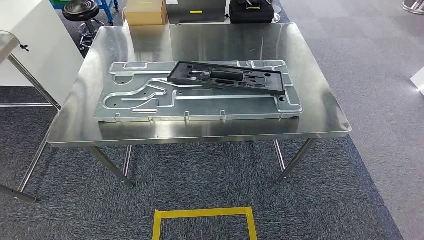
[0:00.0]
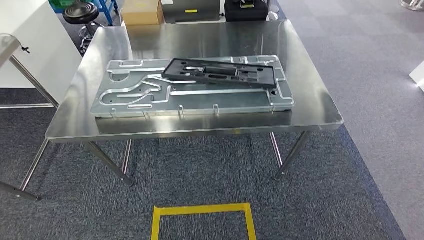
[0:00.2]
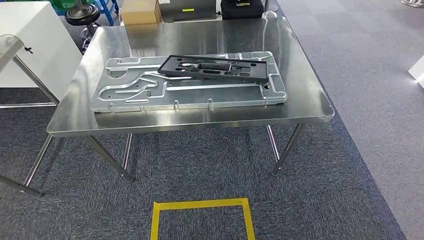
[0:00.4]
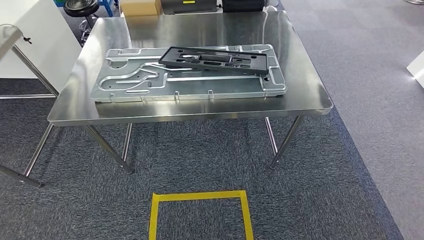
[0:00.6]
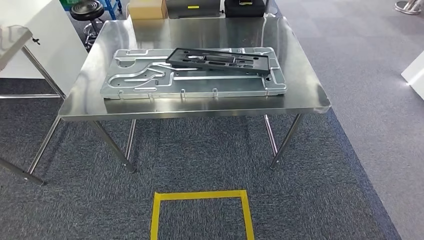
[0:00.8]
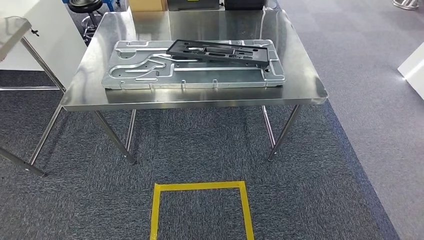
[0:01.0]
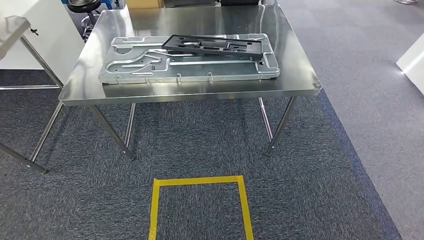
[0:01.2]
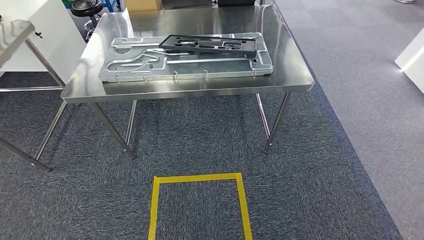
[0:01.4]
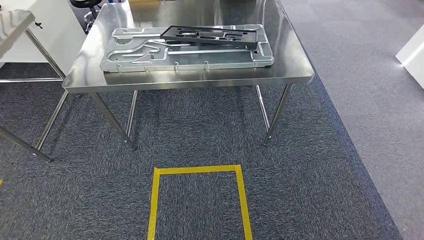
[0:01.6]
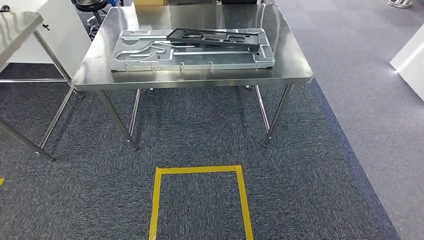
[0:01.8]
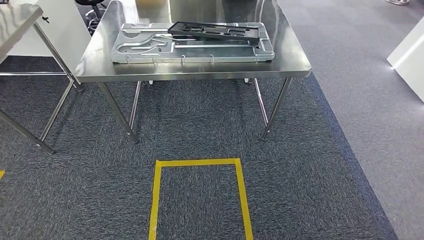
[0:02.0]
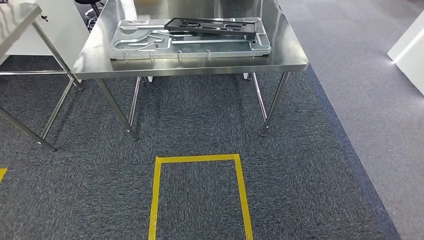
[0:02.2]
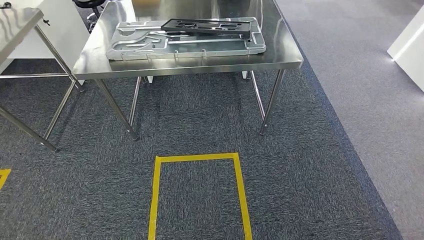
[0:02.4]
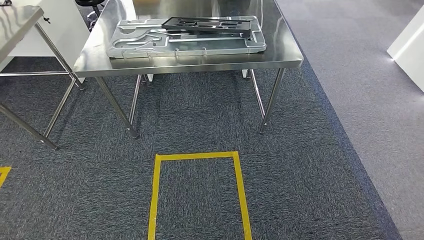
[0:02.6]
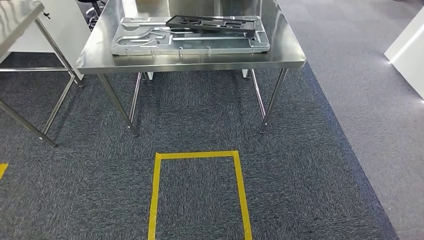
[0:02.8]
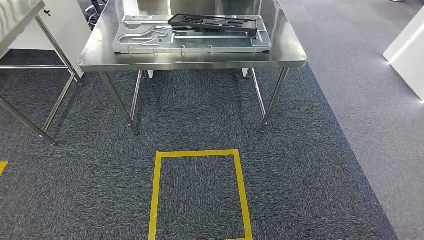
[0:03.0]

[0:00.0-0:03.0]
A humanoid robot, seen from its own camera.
Step, 0:00.4 to 0:03.0: Move to the initial position of the shelf.
0:01.6 to 0:03.0: The hands stay close to where they were, moving slightly.
